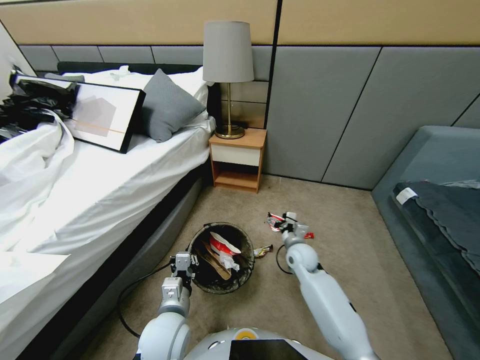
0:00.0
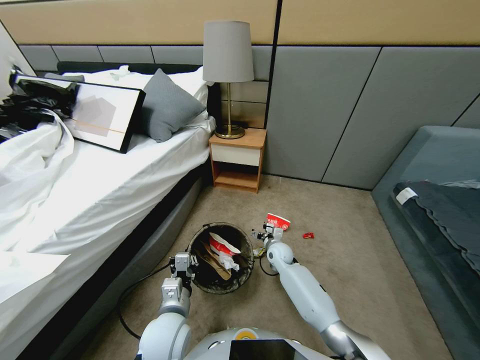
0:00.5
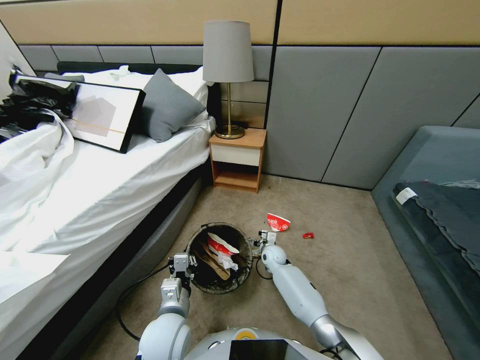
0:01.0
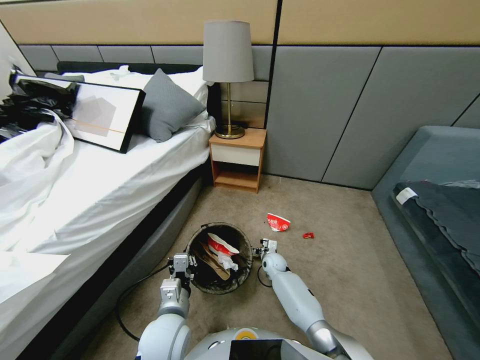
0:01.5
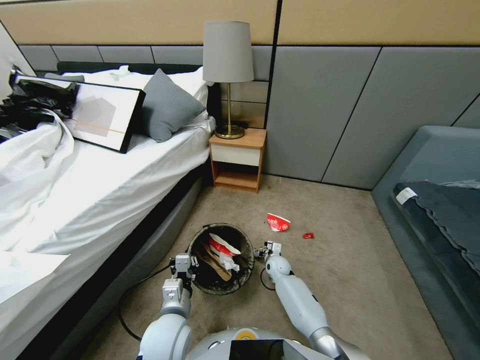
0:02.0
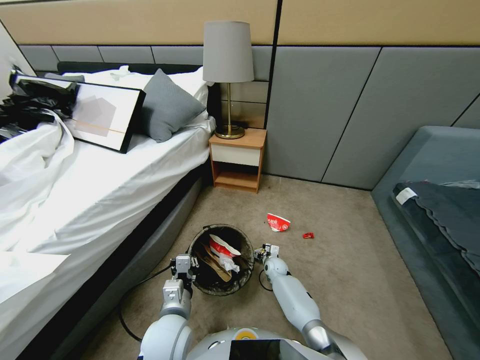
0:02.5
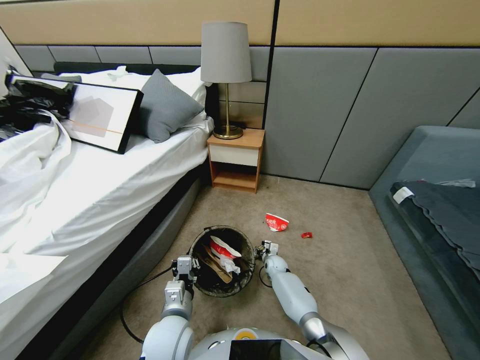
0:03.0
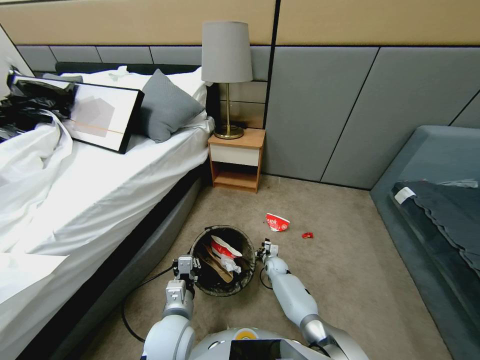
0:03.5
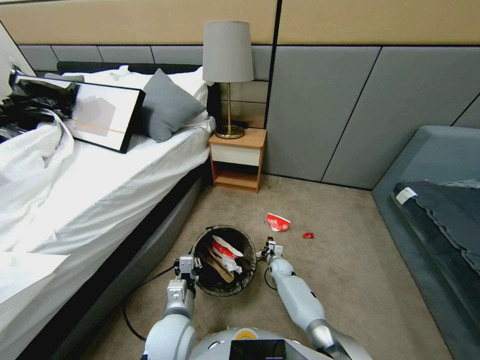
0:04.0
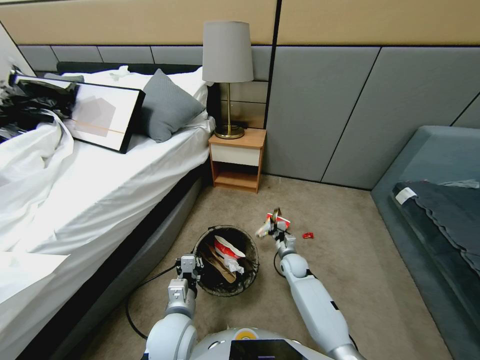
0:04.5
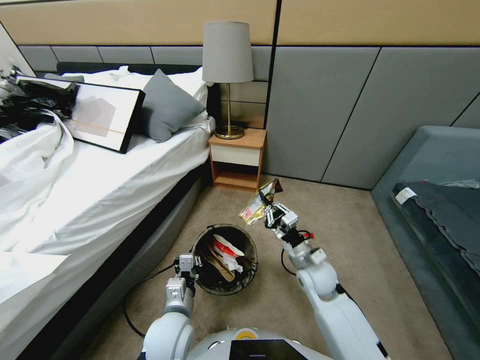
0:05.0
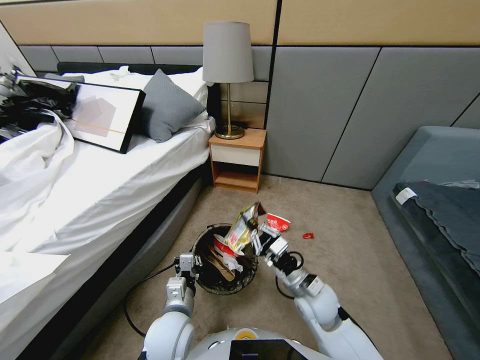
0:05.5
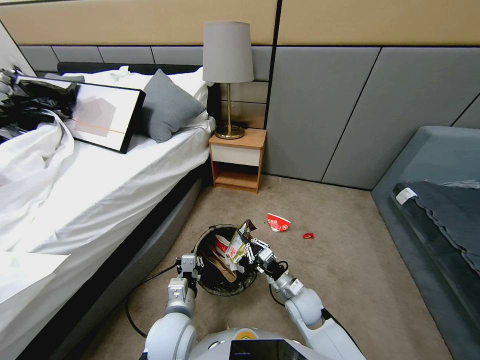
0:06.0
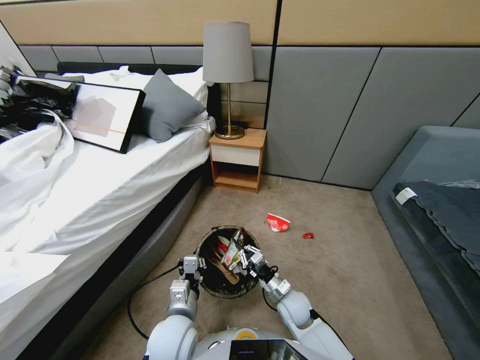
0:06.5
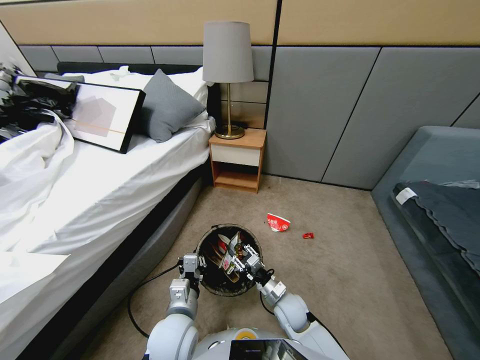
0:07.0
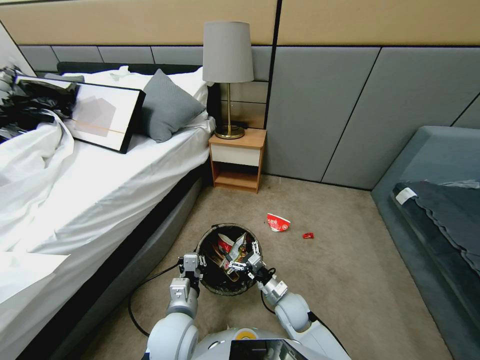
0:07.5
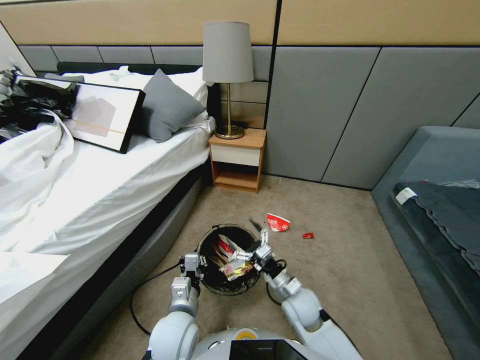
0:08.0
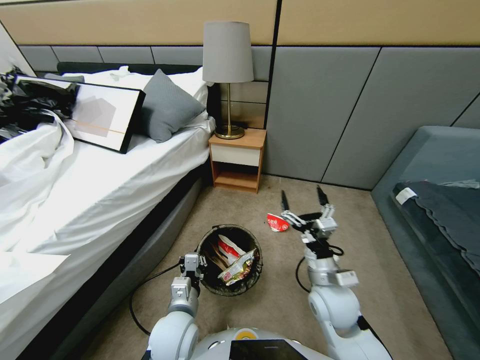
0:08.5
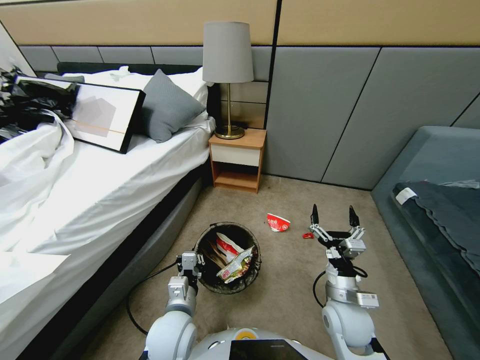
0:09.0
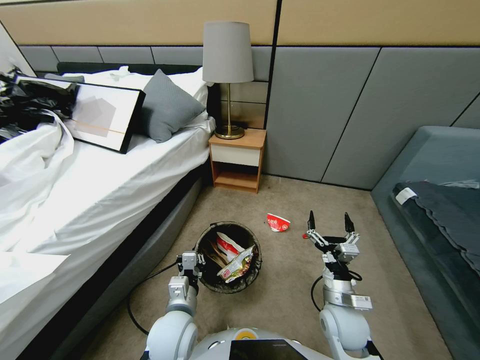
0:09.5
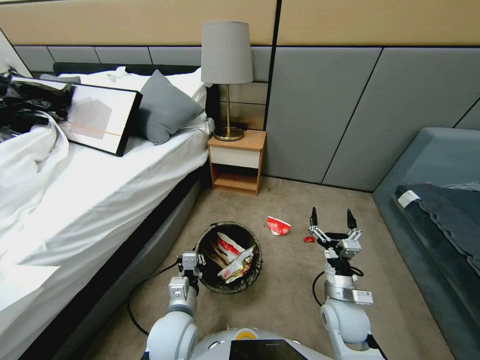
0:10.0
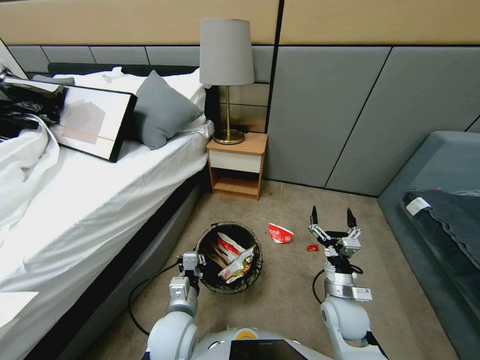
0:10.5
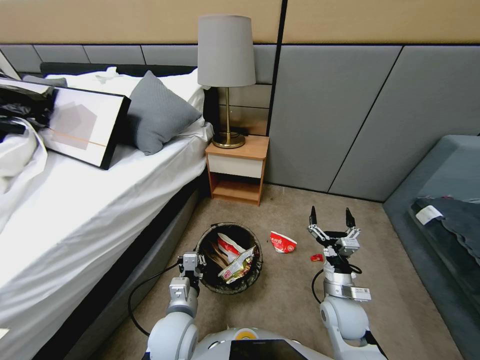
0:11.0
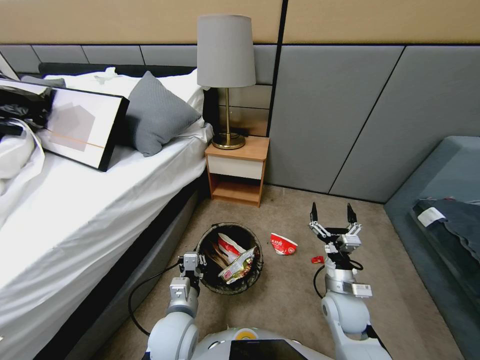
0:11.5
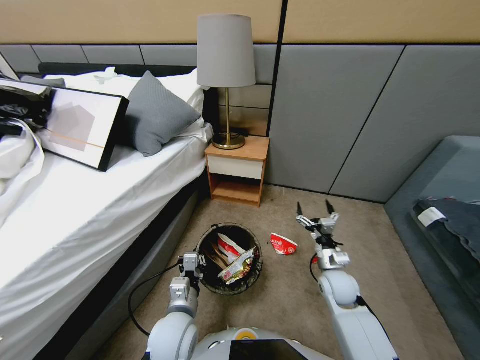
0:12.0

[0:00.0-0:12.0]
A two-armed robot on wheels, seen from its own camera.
Task of the whole recording: Pick up the trash bin, then pick up the garbage from the floor and place it into the trash bin.
0:00.0 to 0:02.0: The right gripper travels downward by some 15 cm.
0:02.0 to 0:04.0: The right gripper closes.
0:04.0 to 0:06.0: The right gripper travels backward and upward by approximately 20 cm.
0:06.0 to 0:08.0: The right gripper shifts approximately 10 cm upward, and opens.
0:08.0 to 0:10.0: The right gripper shifts some 10 cm to the right.
0:10.0 to 0:12.0: The right gripper travels forward by some 10 cm.

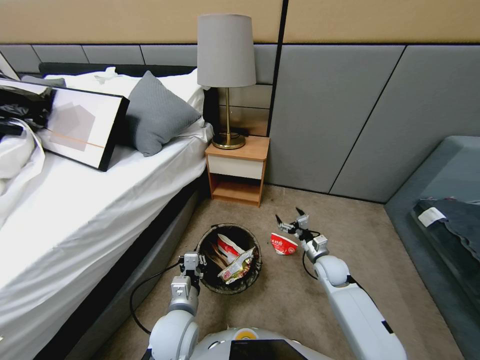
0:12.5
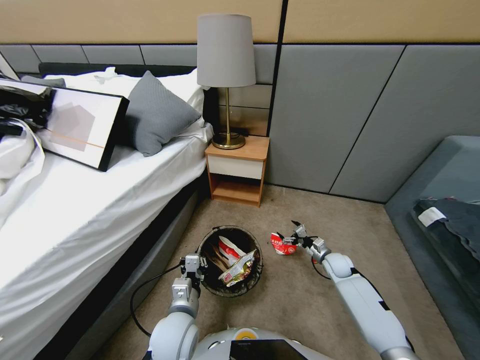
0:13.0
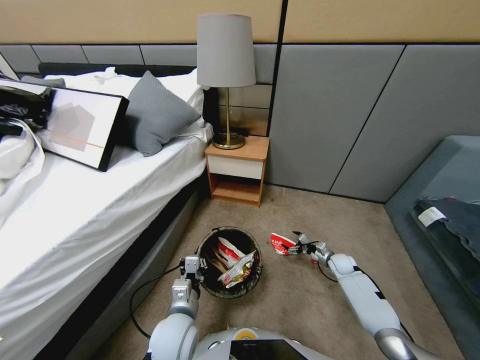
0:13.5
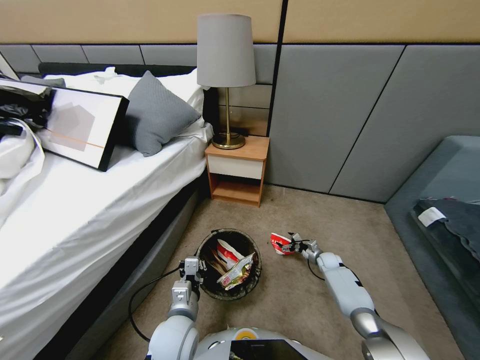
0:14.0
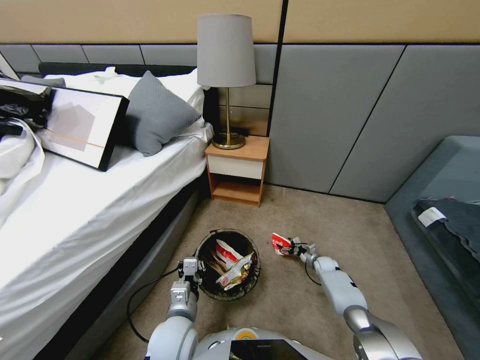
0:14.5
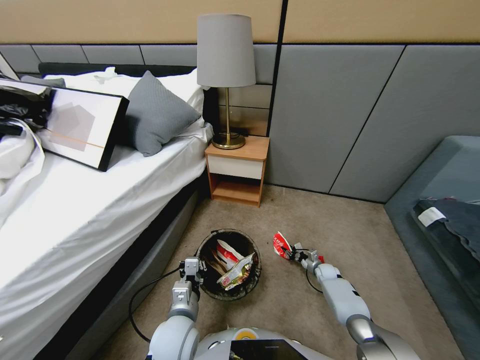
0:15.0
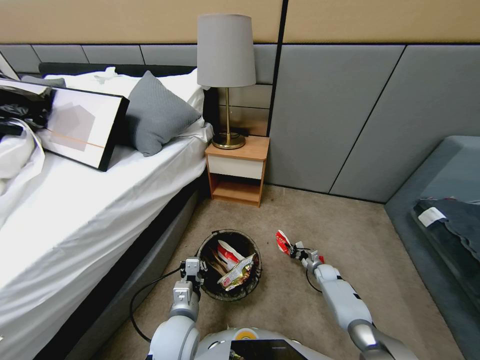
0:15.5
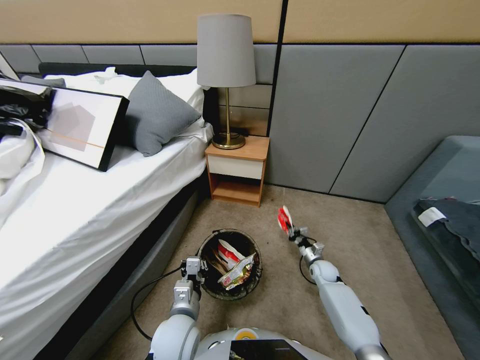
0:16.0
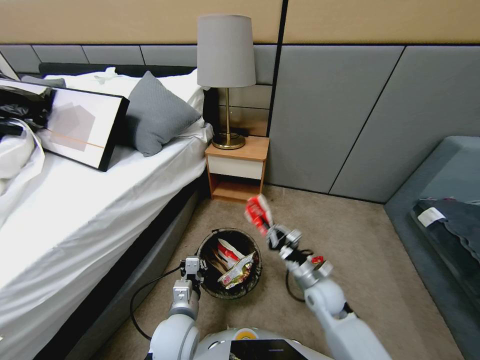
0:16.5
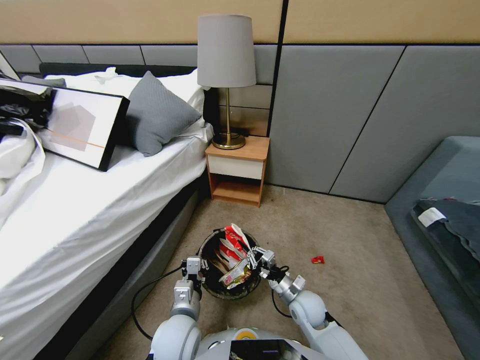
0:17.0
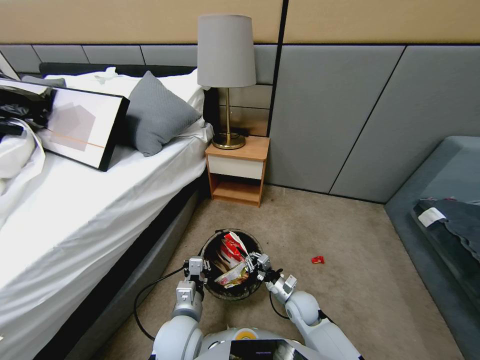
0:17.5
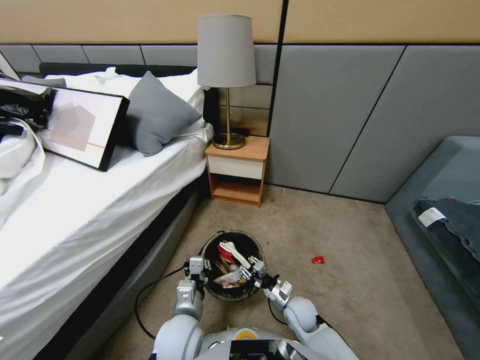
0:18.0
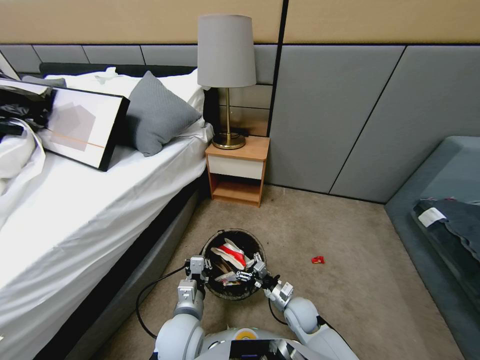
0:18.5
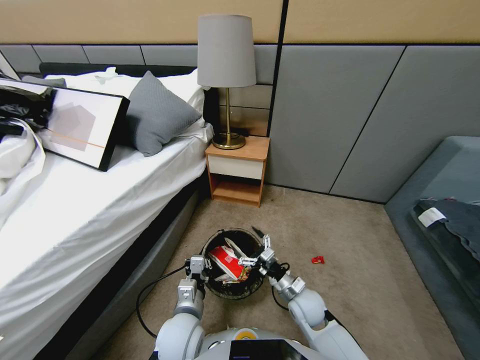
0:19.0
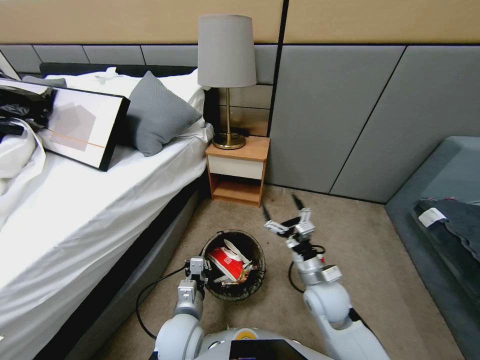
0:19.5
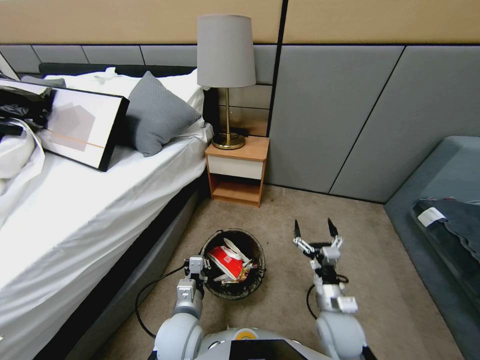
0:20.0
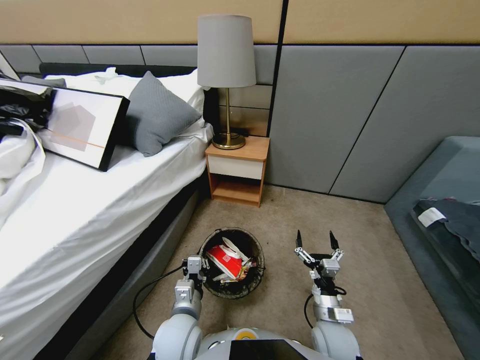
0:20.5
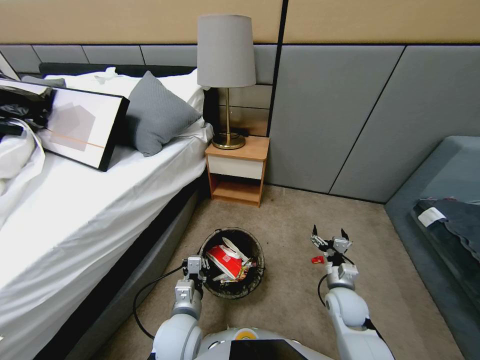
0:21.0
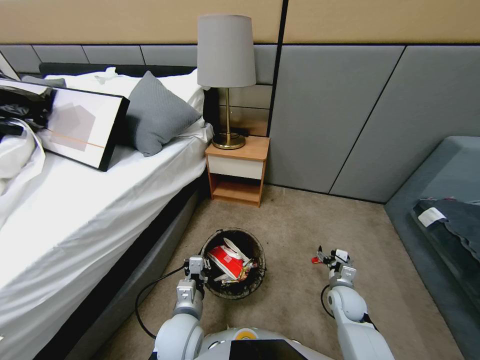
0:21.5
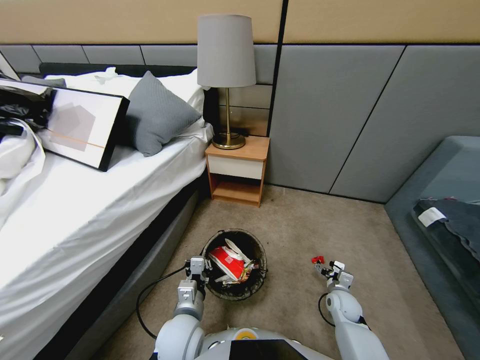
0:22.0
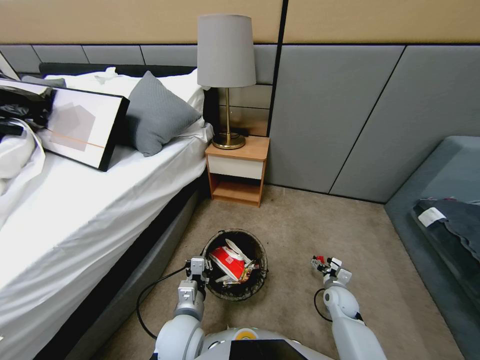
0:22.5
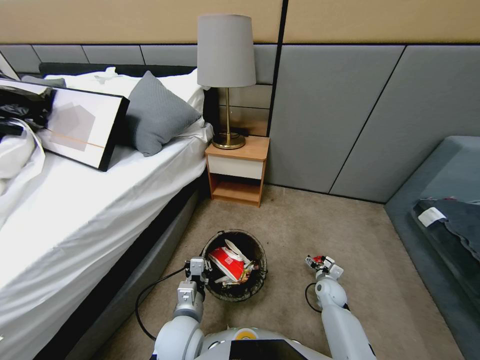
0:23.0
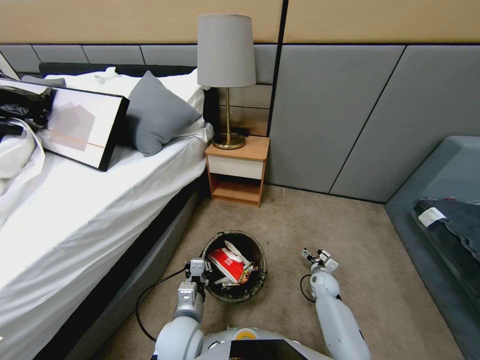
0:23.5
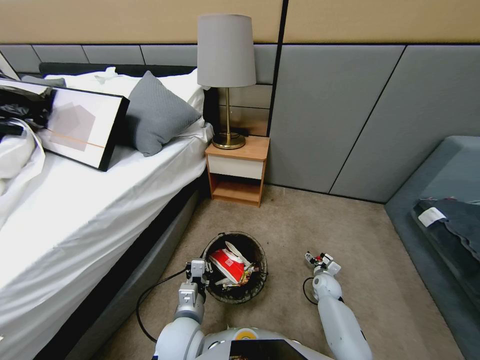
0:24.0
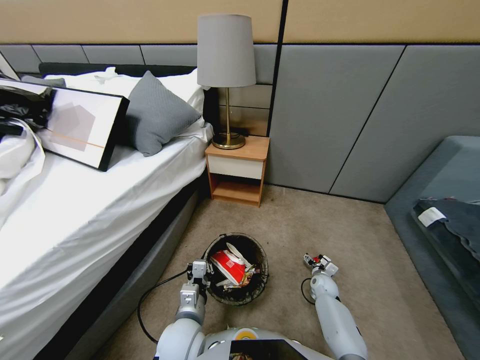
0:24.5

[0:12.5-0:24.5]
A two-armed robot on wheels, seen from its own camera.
Task of the whole recording: Pick up the trash bin, then pick up the garbage from the floor and place it into the trash bin.
0:12.5 to 0:14.5: The right gripper is displaced downward and to the right by roughly 20 cm.
0:14.5 to 0:16.5: The right gripper heads upward, to the left and backward, covering about 30 cm, and closes up.
0:16.5 to 0:18.5: The right gripper travels downward by some 10 cm, and opens.
0:18.5 to 0:20.5: The right gripper goes approximately 10 cm upward, backward and to the right.
0:20.5 to 0:22.5: The right gripper goes some 20 cm downward, forward and to the right.
0:22.5 to 0:24.5: The right gripper is displaced downward and forward by about 10 cm.

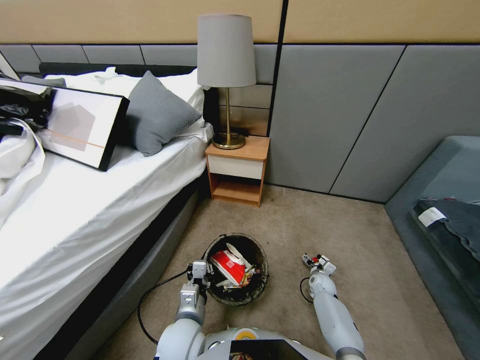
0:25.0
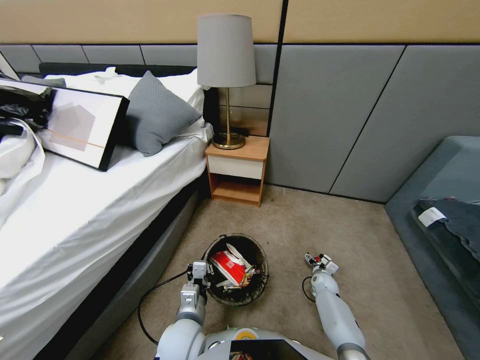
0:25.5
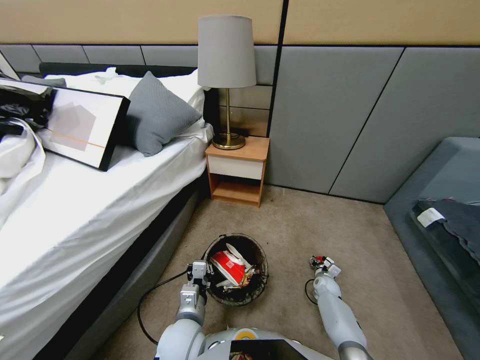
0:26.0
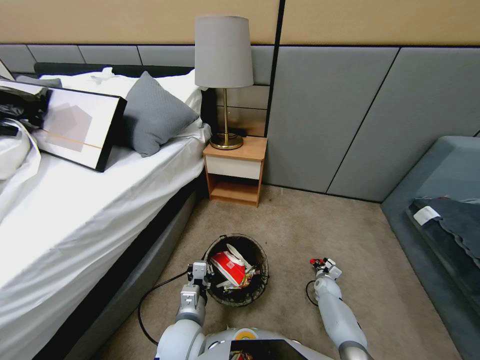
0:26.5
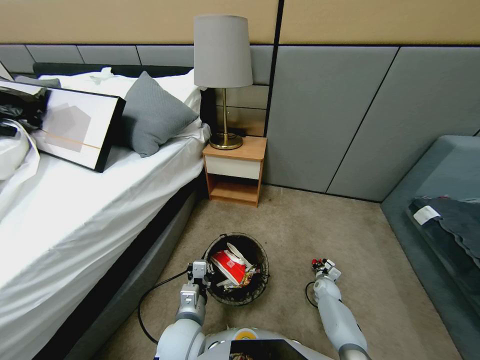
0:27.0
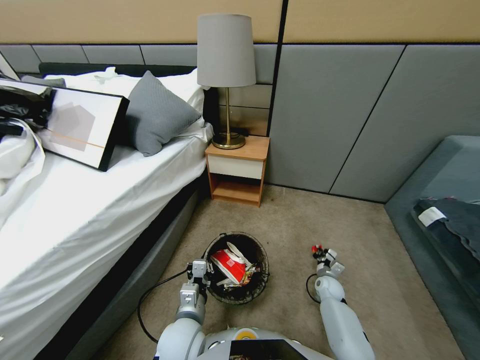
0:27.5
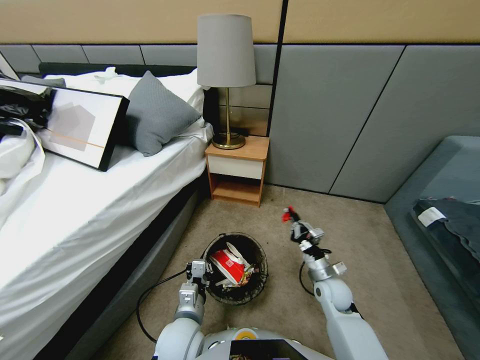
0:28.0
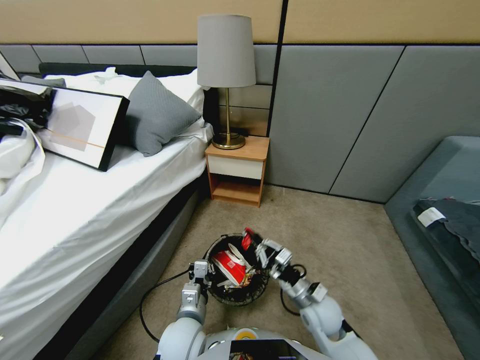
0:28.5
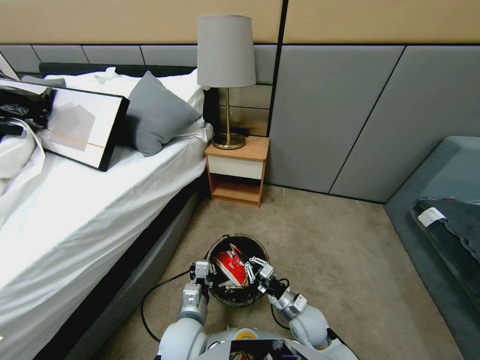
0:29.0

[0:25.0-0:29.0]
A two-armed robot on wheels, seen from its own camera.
Task of the whole recording: Pick up the trash bin, then pick up the garbage from the floor and place it into the trash bin.
0:25.0 to 0:27.0: The right gripper closes up.
0:27.0 to 0:29.0: The right gripper goes roughly 30 cm to the left, upward and backward.
